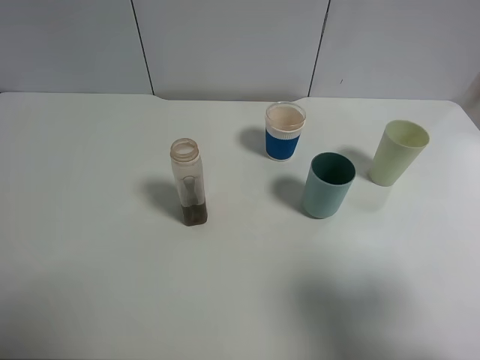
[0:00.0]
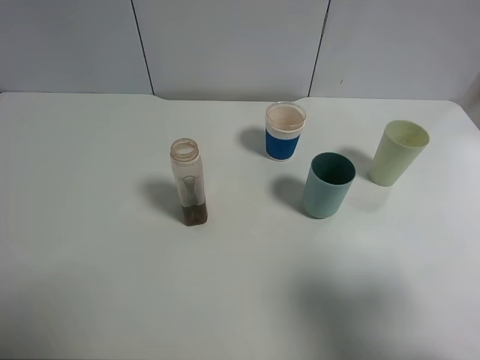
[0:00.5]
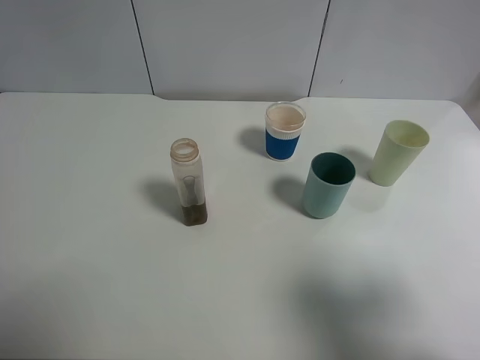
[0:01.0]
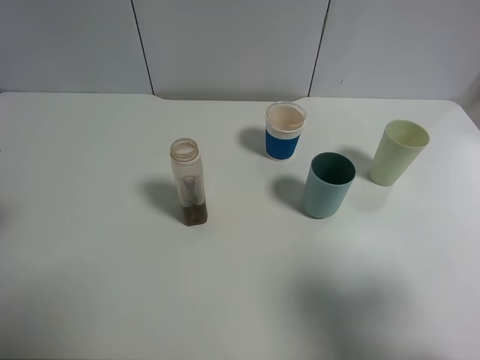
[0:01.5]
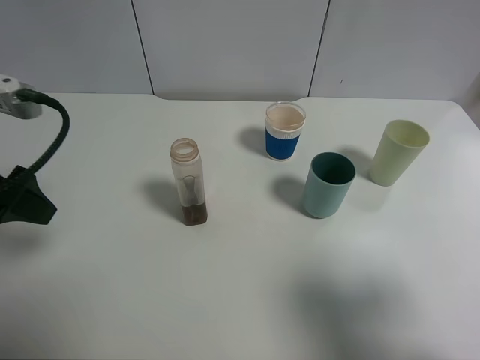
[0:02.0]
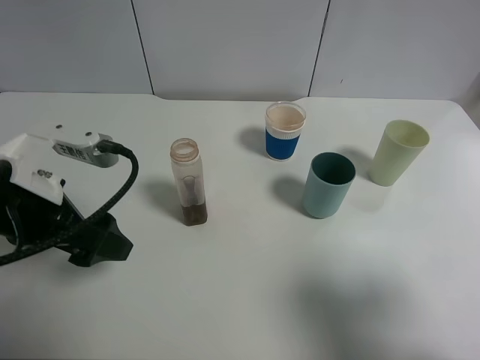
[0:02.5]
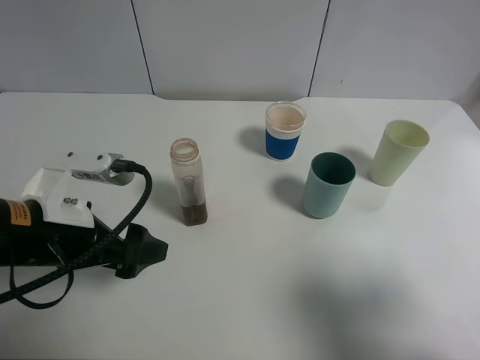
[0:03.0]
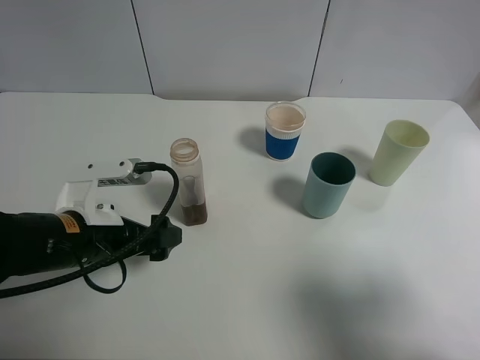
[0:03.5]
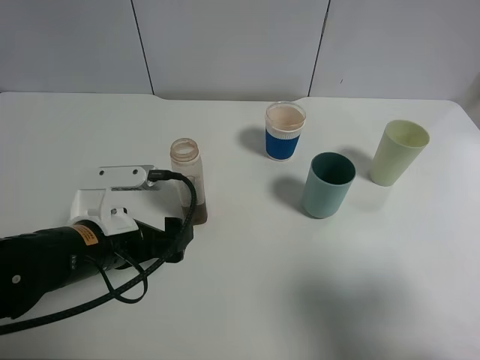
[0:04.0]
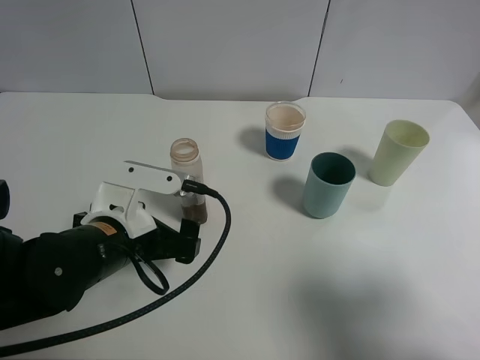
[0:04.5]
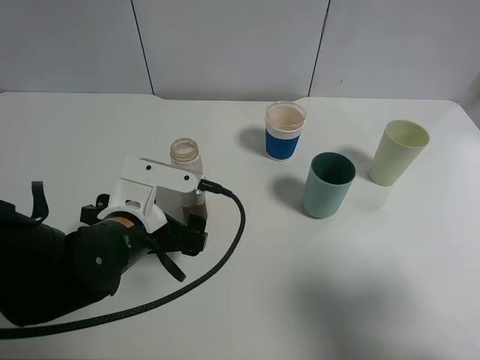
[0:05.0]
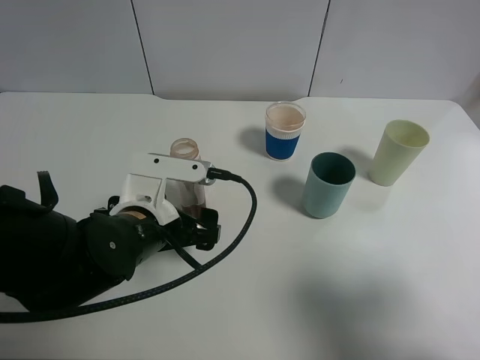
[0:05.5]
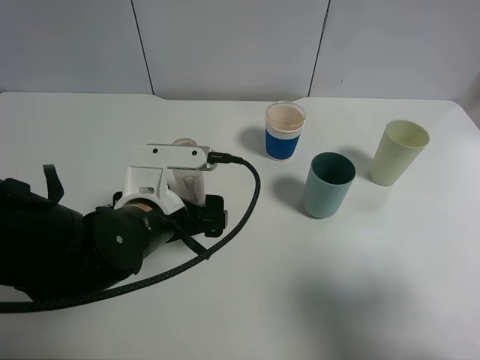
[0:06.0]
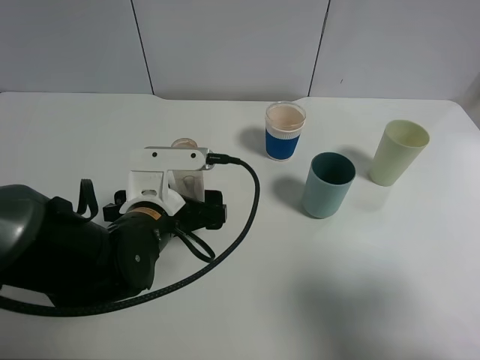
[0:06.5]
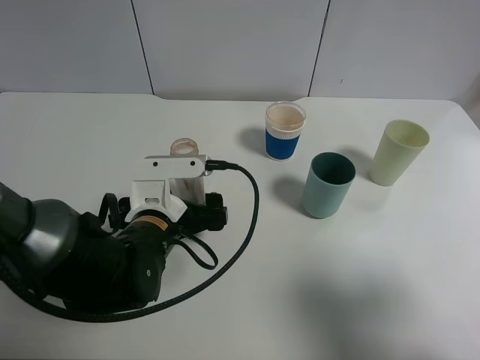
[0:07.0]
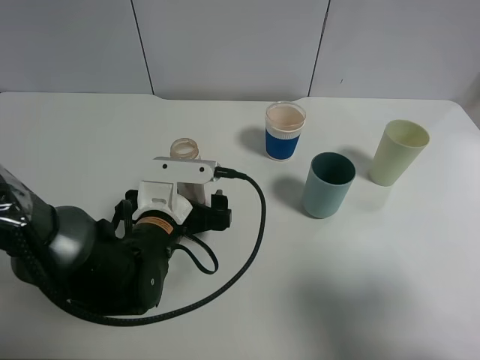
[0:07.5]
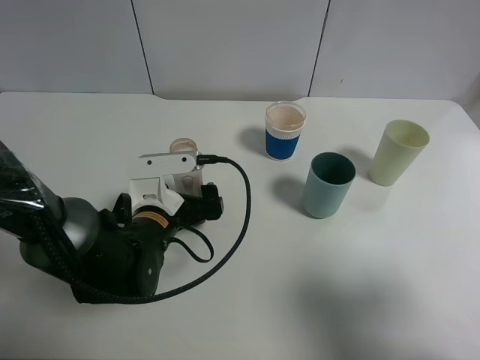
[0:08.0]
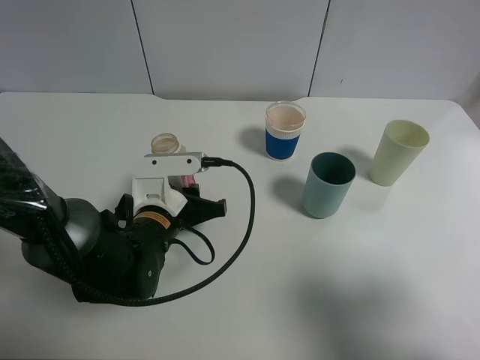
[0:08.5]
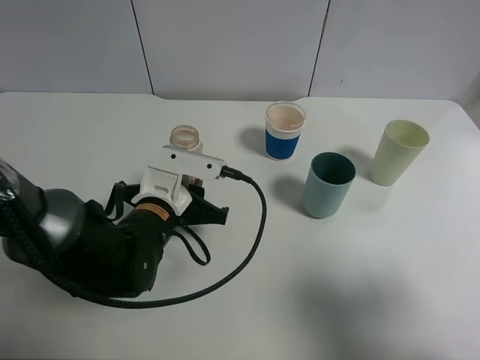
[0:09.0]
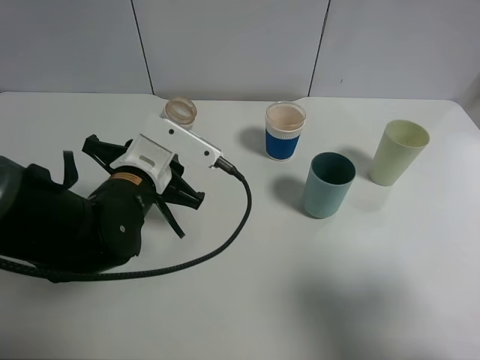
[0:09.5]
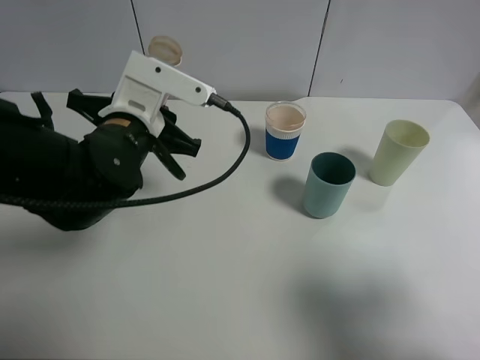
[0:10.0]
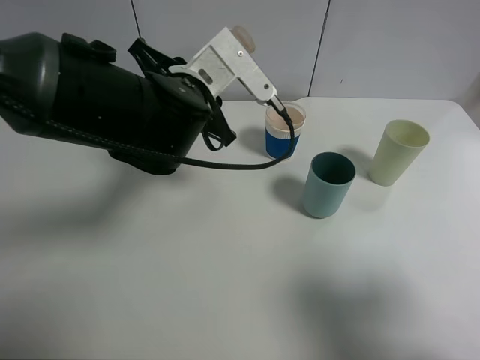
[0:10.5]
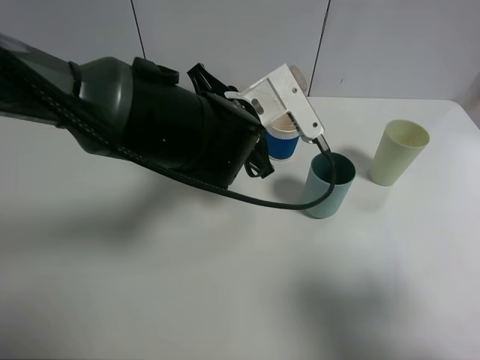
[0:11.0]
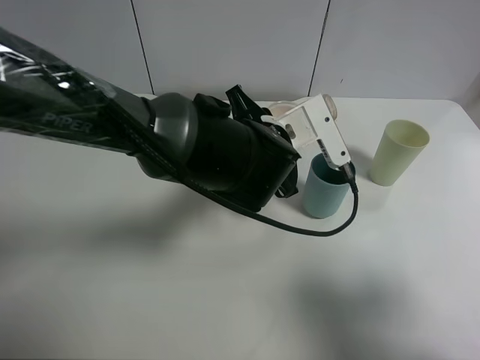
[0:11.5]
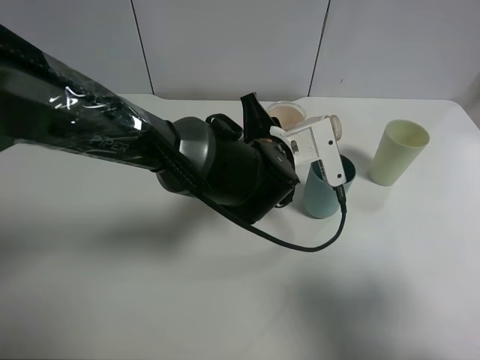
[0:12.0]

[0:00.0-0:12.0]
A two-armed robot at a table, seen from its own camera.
Task of the whole recording: use a clamp to hold the bottle of the drink, pour the beverage into a random cup, then clamp the cup containing the drink and pour the drink into another random cup.
Step, 0:00.0 to 0:08.5: Pick up the drink bottle with left gripper.
0:00.0 to 0:02.0: The left gripper goes roughly 20 cm forward.
0:02.0 to 0:04.0: The left gripper heads downward and to the right, covering roughly 20 cm.
0:04.0 to 0:06.0: The left gripper goes some 5 cm to the right.
0:06.0 to 0:08.0: The left gripper goes about 5 cm downward.
0:08.0 to 0:10.0: The left gripper heads upward, covering roughly 10 cm, and closes its fingers.
0:10.0 to 0:12.0: The left gripper heads to the right, covering roughly 15 cm.

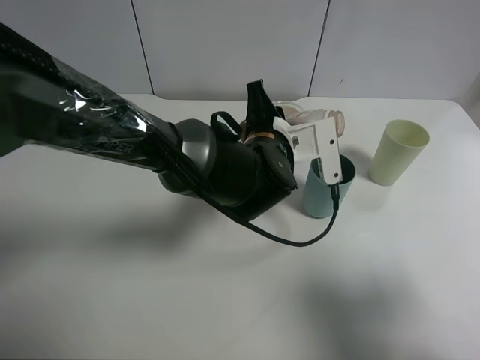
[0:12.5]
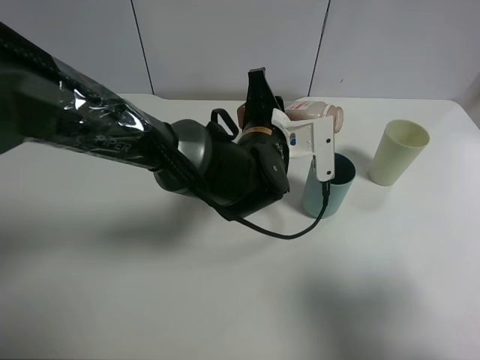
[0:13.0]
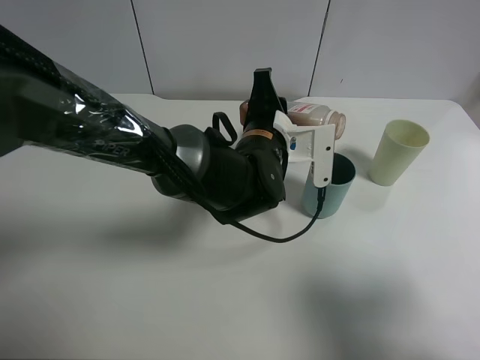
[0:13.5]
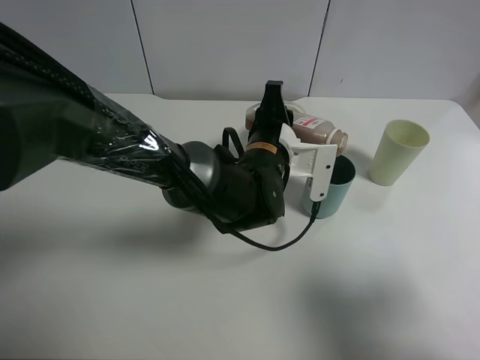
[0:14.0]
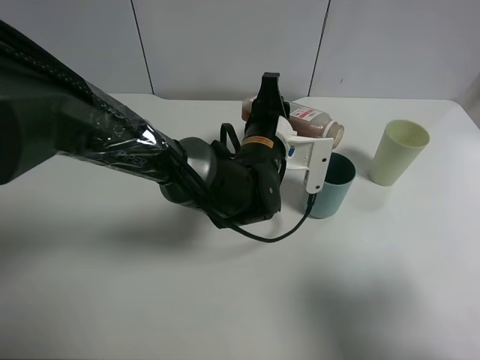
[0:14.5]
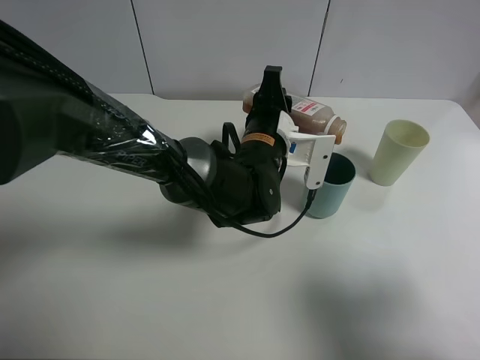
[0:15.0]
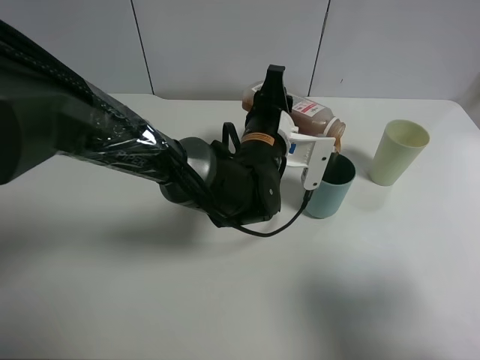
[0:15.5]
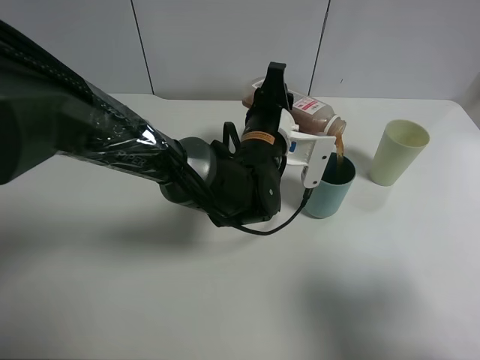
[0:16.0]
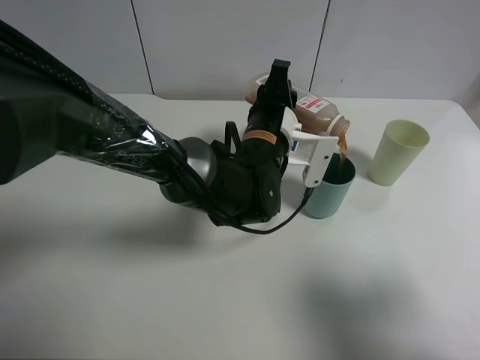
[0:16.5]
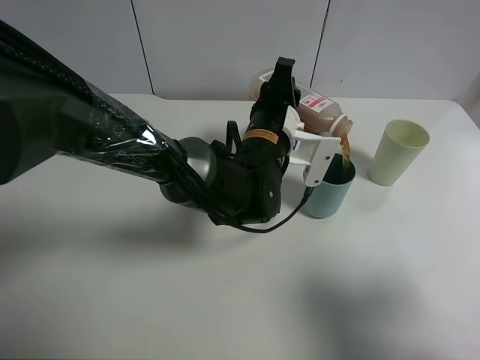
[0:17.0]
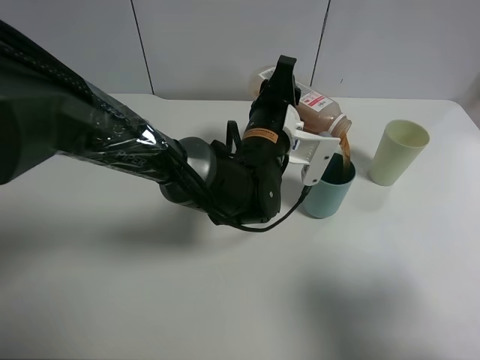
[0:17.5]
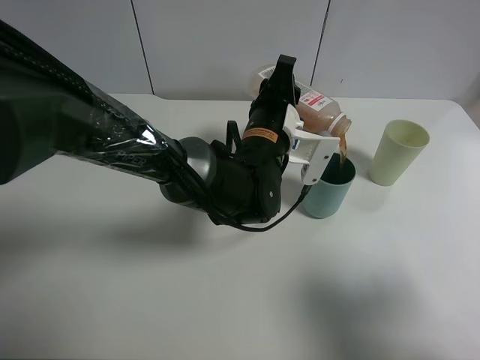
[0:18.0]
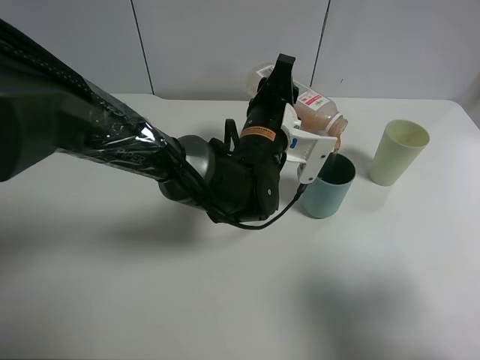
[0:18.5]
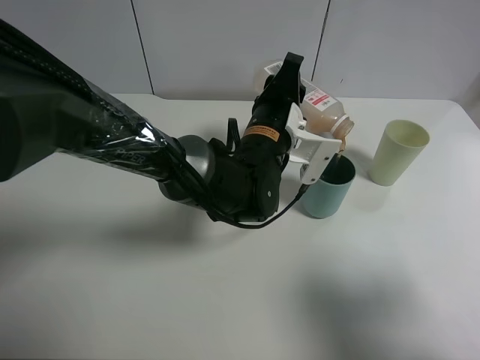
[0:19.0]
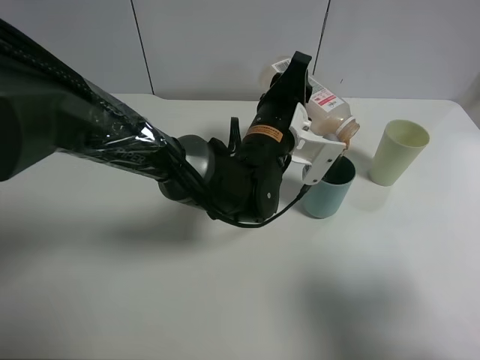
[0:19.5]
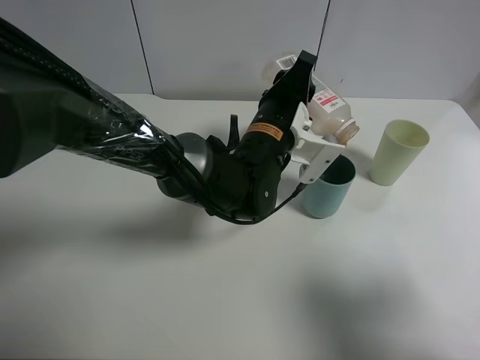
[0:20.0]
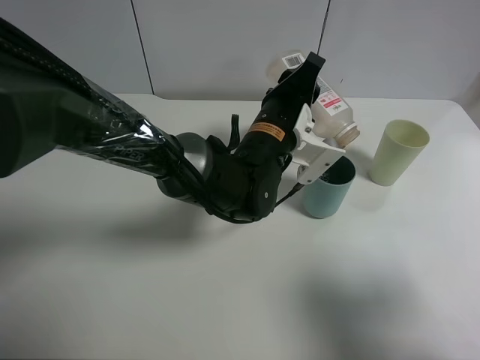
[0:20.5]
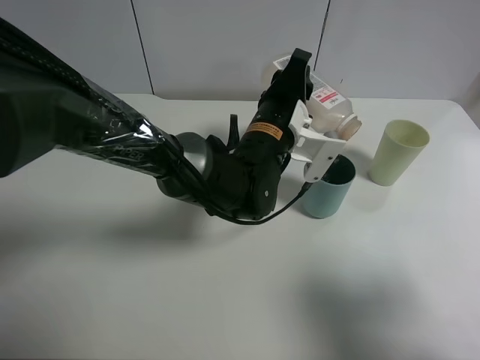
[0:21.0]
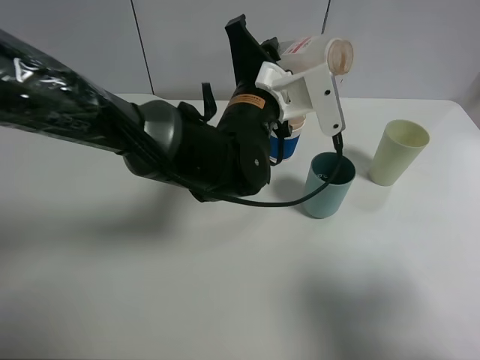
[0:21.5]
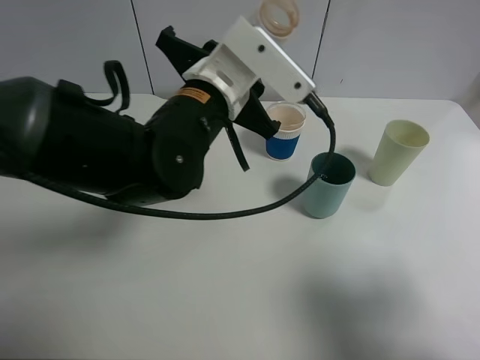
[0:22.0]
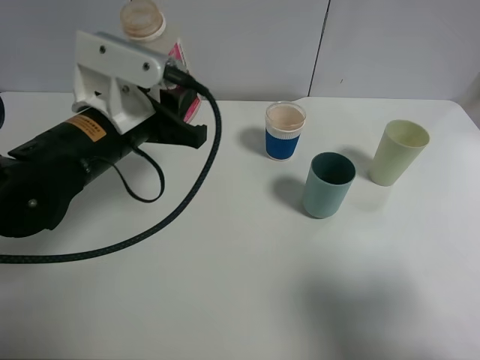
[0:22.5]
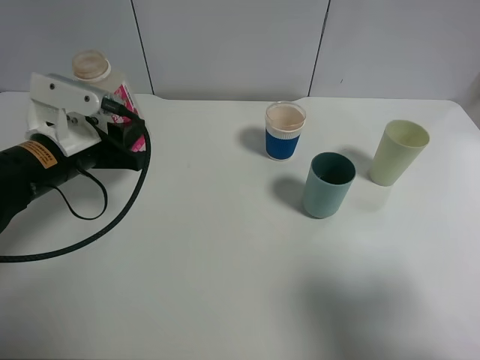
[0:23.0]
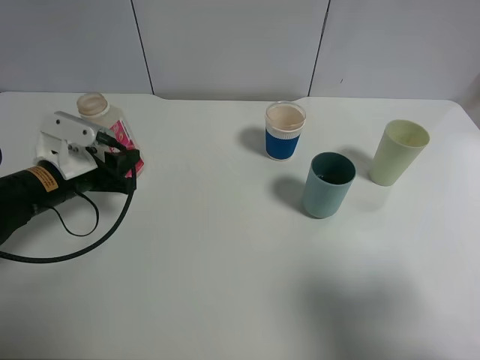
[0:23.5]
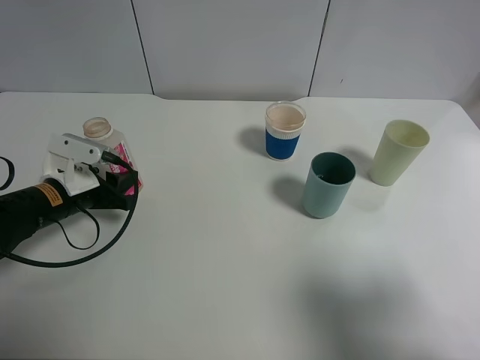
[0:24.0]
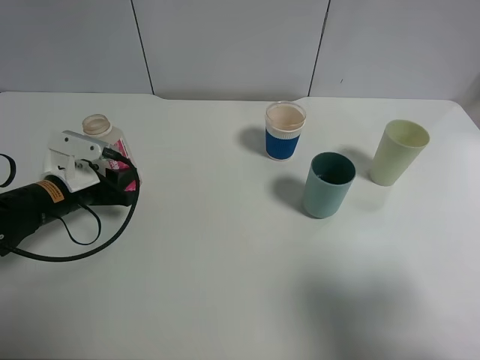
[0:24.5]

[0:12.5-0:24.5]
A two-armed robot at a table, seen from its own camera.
Task of the whole recording: use a clamp to hold the bottle of the drink, pour the beverage into a random cup, then clamp the cup containing the drink and pour the drink into another random cup.
Step, 0:12.5 to 0:21.0: Pour the drink into the blue plastic cup with left gripper.
0:14.5 to 0:18.5: The grippers move only a little.
0:18.5 to 0:20.5: The grippers stay close to where they were, moving slightly.
0:20.5 to 0:22.5: The left gripper shifts approximately 20 cm to the left.
0:22.5 to 0:24.5: The left gripper shifts some 15 cm downward and to the left.

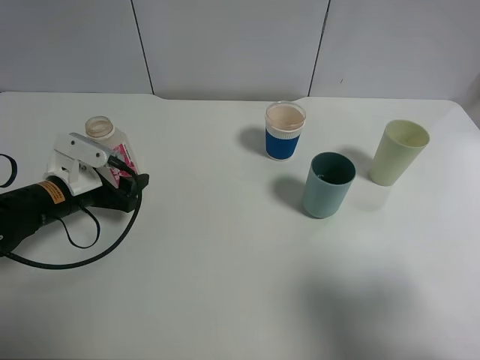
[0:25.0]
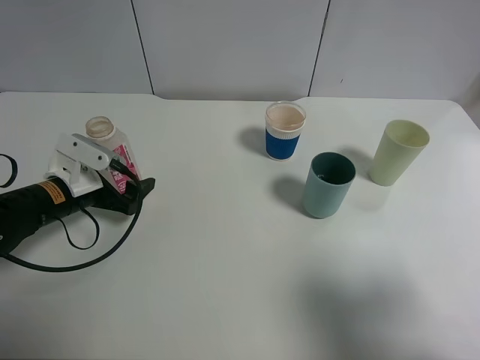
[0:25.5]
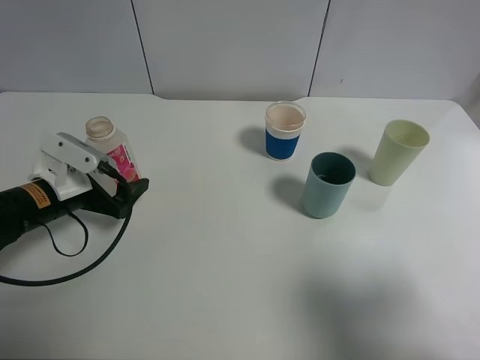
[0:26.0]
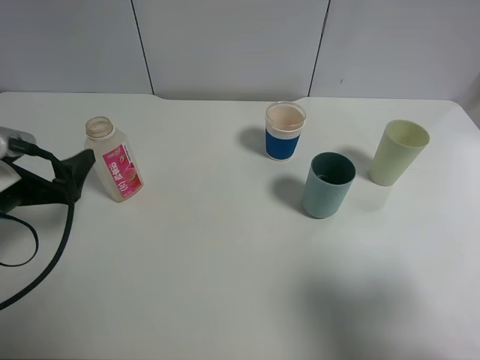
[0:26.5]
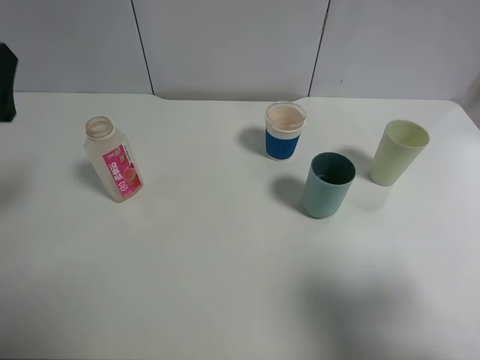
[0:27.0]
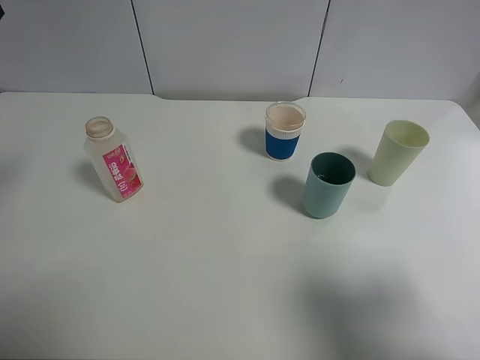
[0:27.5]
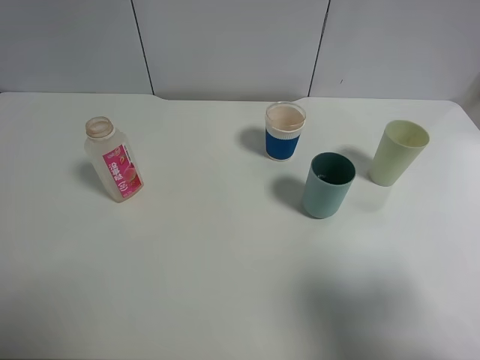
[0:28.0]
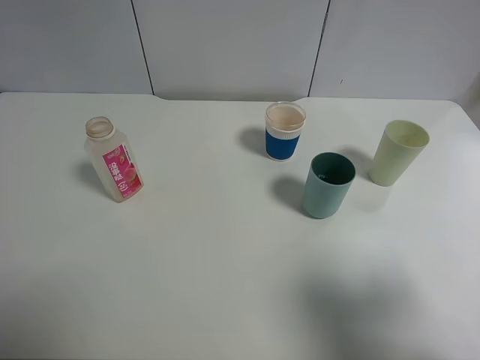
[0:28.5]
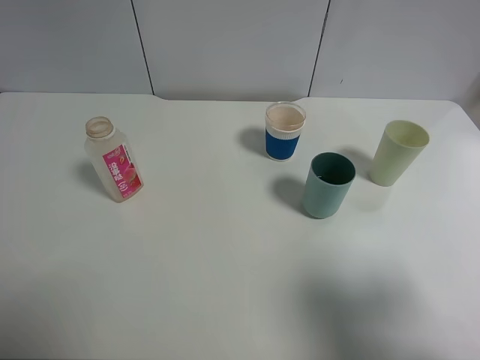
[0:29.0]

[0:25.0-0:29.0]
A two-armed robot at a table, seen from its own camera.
Task of the whole recording: use a clamp to hold the bottle of the drink, pour the beverage into a random cup, then clamp the cup containing the drink and pour the drink into another random cup.
0:25.0 to 0:27.0: The left gripper is displaced upward and backward by roughly 20 cm.
0:27.0 to 0:29.0: The left gripper travels backward and upward by roughly 20 cm.
